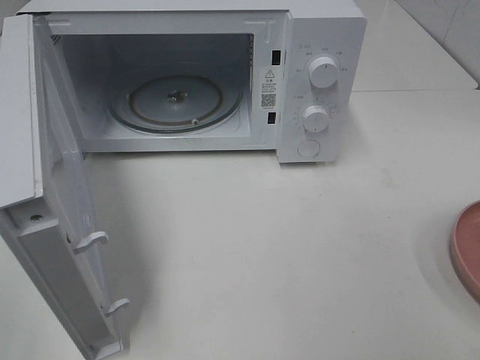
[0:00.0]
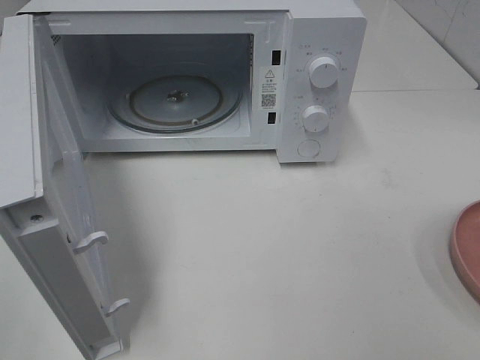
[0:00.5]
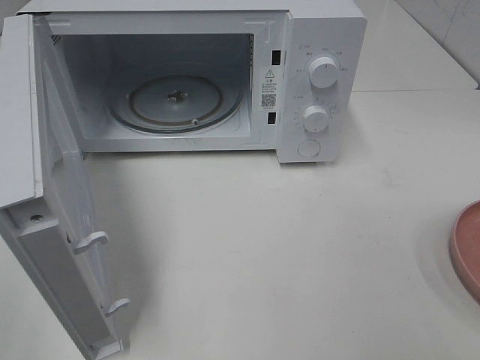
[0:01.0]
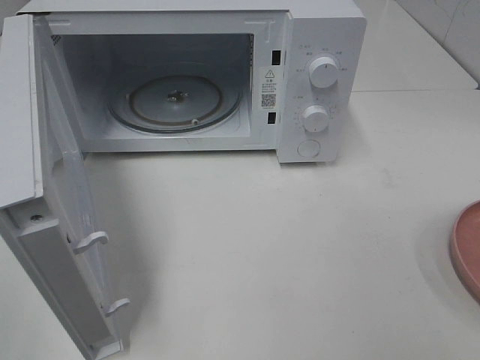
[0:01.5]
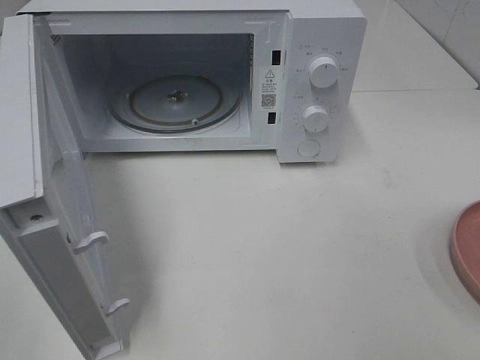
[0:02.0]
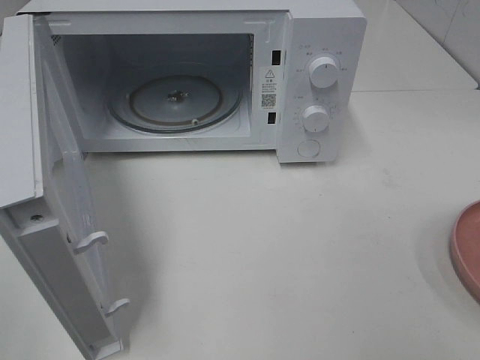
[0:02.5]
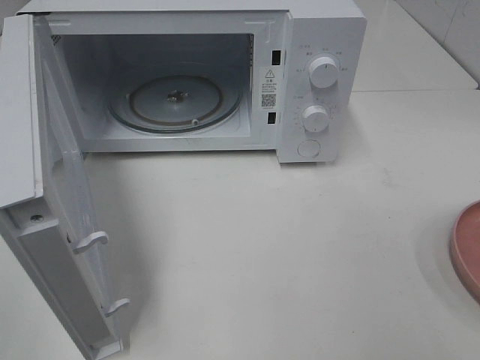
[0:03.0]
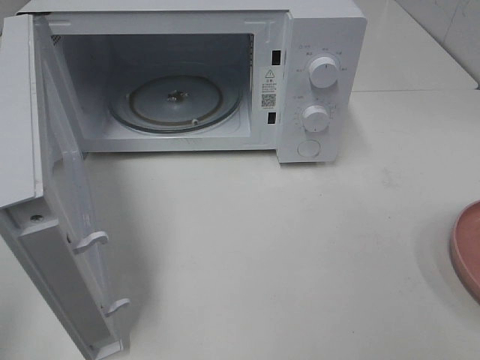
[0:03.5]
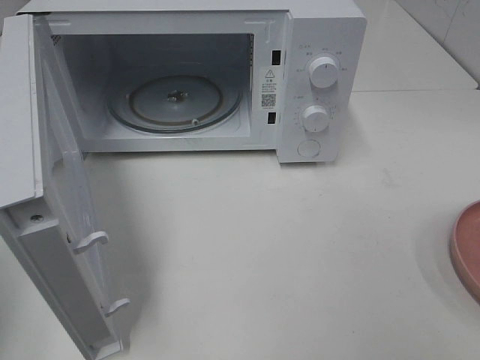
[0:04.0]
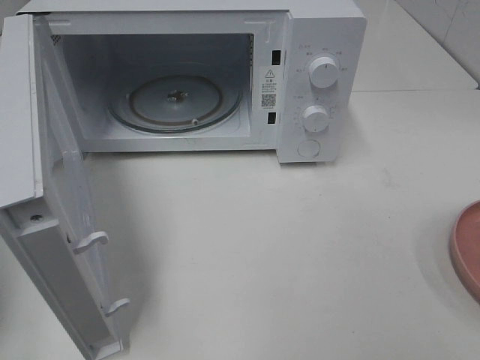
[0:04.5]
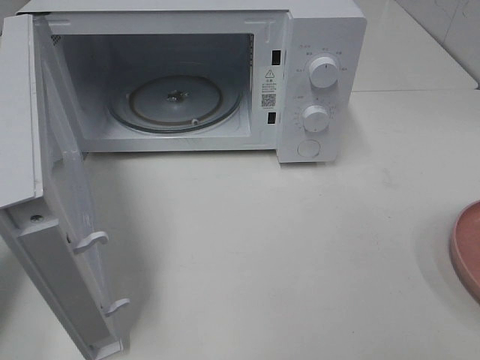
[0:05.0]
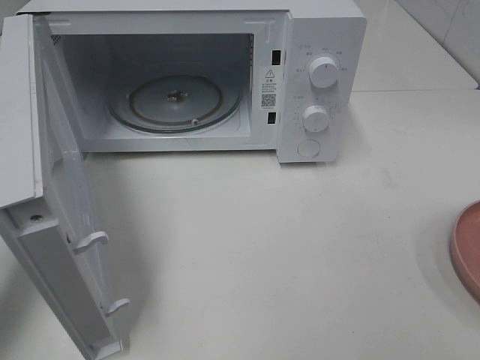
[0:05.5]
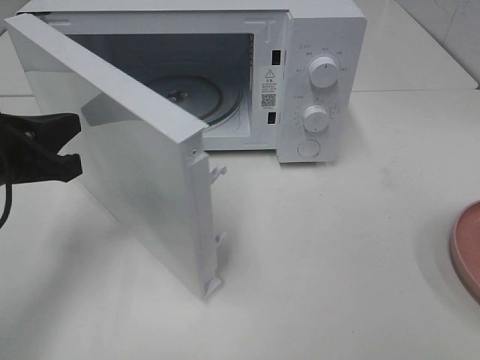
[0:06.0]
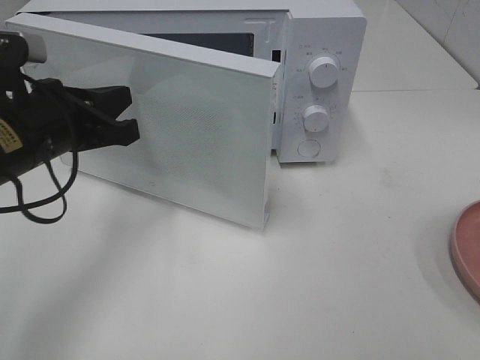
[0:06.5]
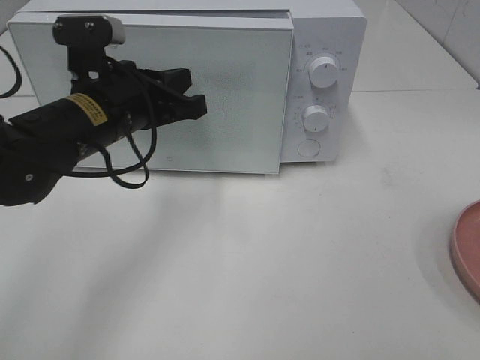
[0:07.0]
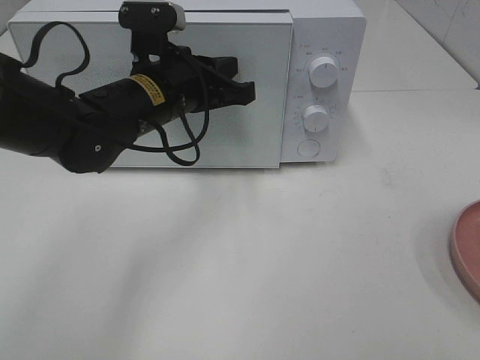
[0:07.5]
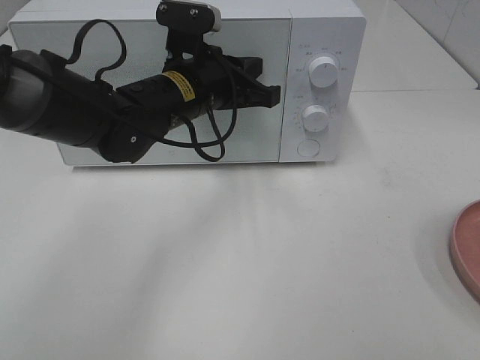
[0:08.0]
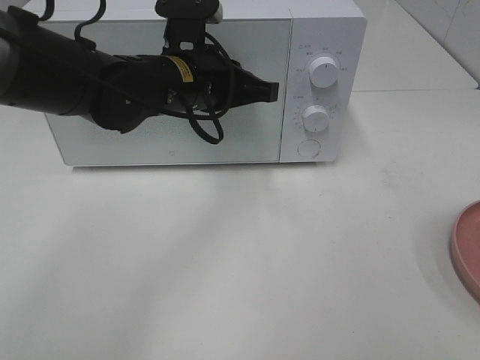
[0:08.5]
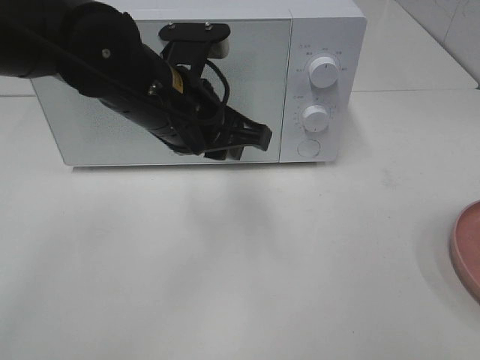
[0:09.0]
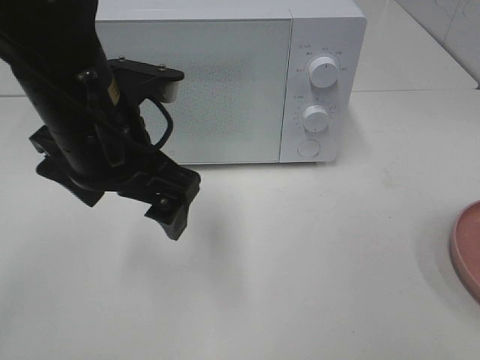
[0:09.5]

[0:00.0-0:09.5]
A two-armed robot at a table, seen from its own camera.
Task of the whole recording: Heat the burger.
Step, 0:00.0 to 0:08.5: Left hand: close the microwave door.
0:04.0 to 0:05.5: The left gripper heads forward and downward, covering about 15 cm.
0:05.5 to 0:07.5: The left gripper travels to the right and forward by about 25 cm.
0:07.5 to 0:09.5: The left gripper moves backward and upward, about 10 cm, and opens.

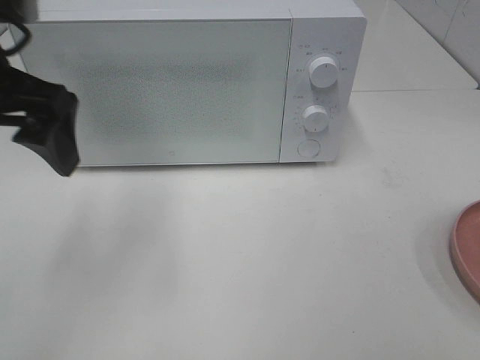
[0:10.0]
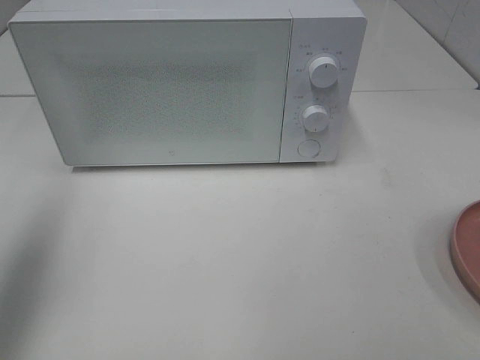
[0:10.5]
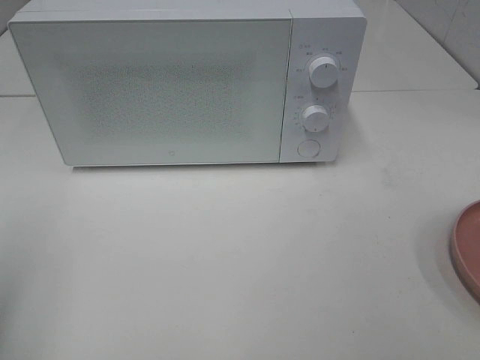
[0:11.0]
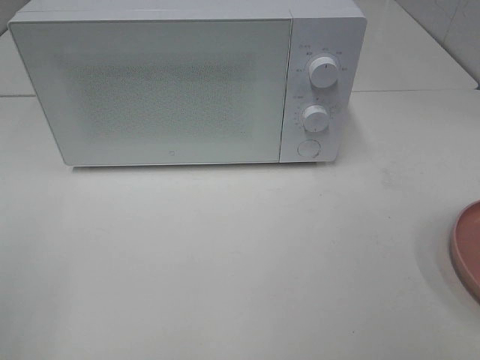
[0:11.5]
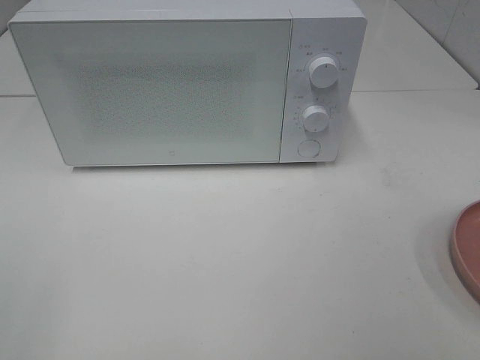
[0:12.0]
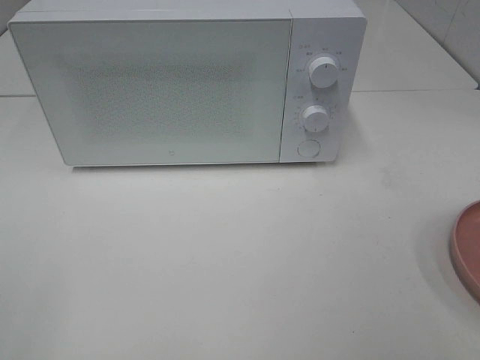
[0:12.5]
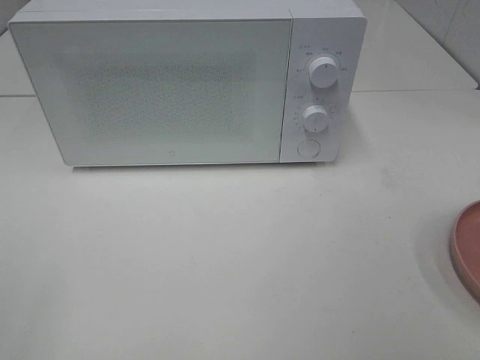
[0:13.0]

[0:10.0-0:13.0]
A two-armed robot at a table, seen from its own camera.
Task of the whole recording: Heat the burger.
0:10.0 to 0:11.5: The left gripper goes roughly 25 cm backward and to the left.

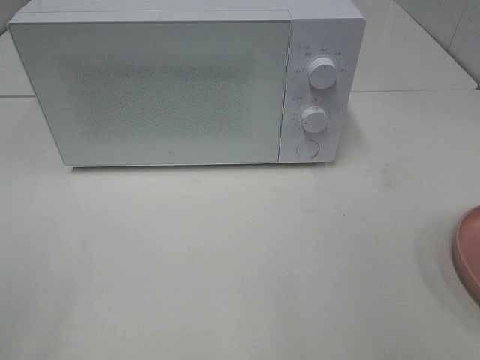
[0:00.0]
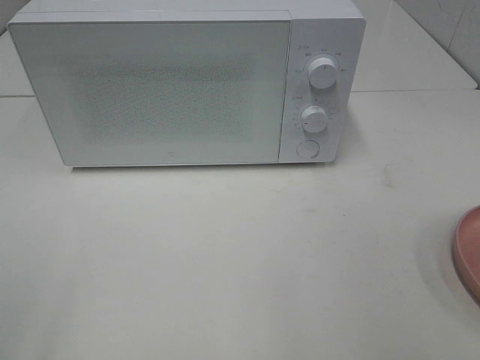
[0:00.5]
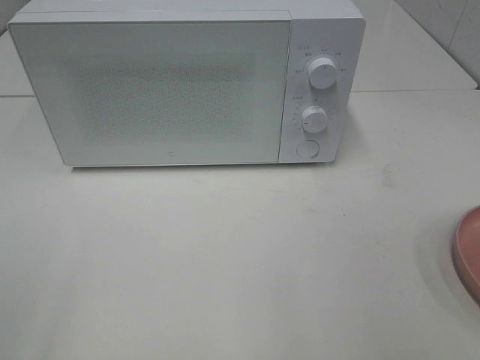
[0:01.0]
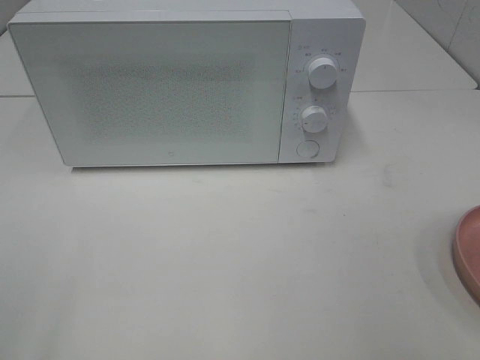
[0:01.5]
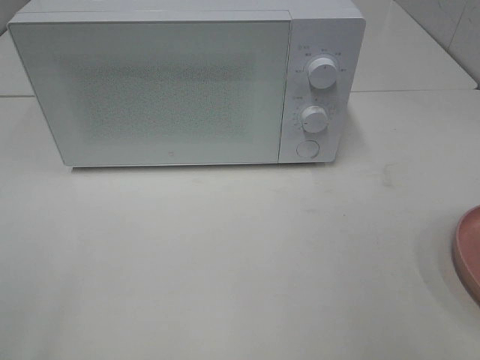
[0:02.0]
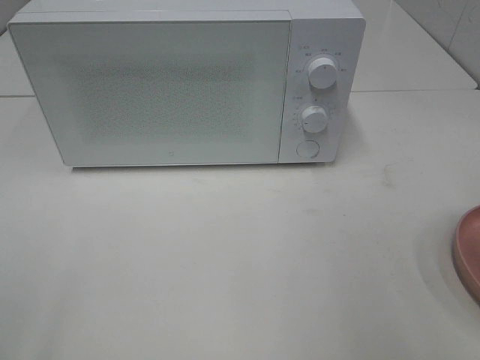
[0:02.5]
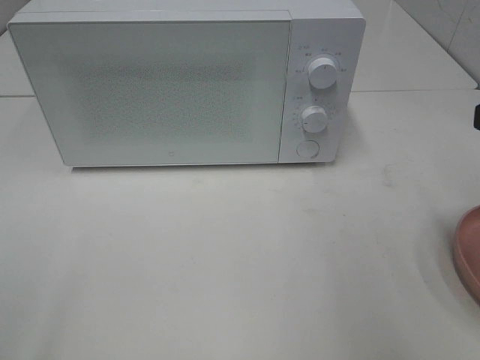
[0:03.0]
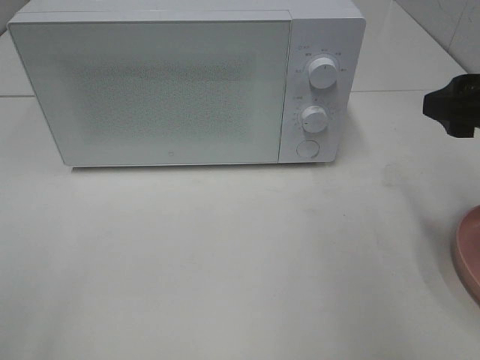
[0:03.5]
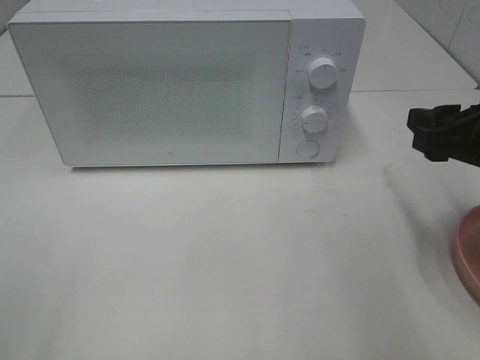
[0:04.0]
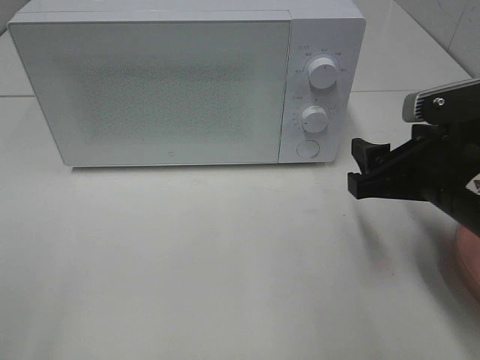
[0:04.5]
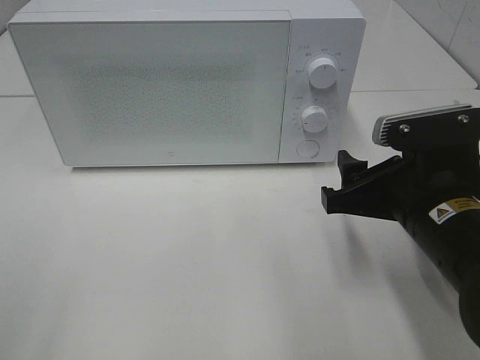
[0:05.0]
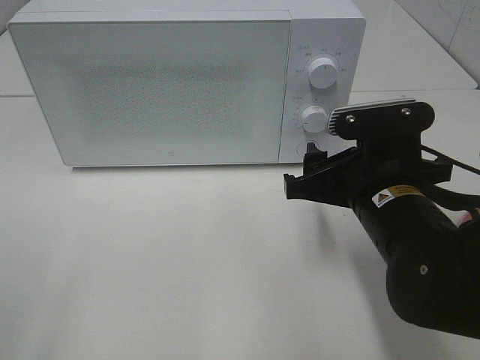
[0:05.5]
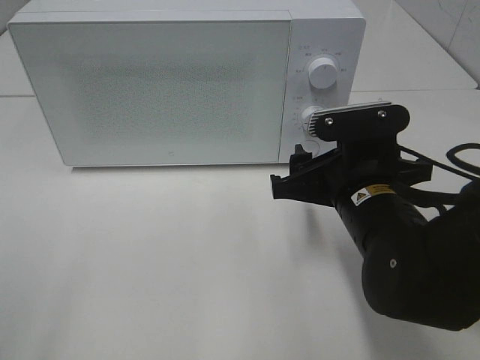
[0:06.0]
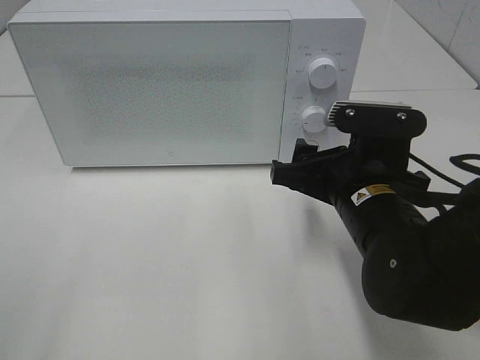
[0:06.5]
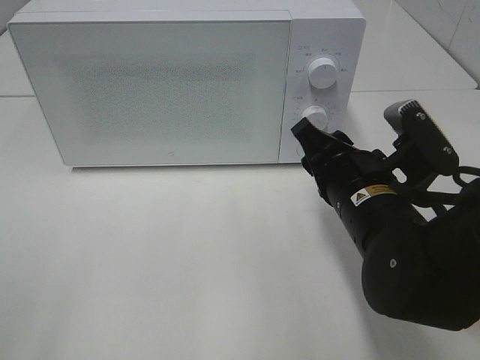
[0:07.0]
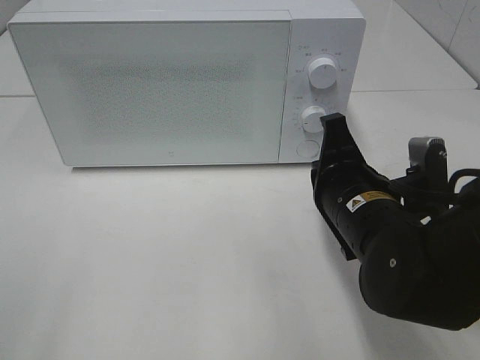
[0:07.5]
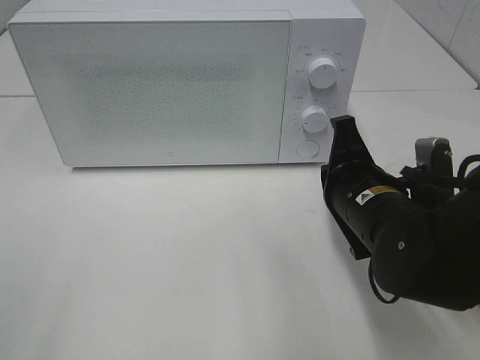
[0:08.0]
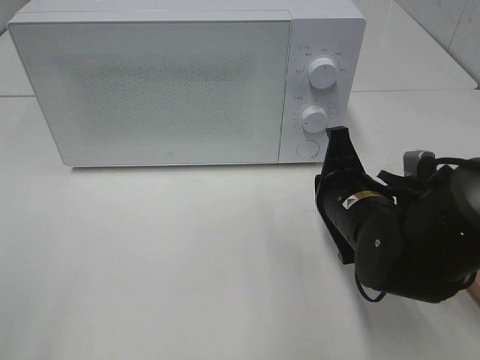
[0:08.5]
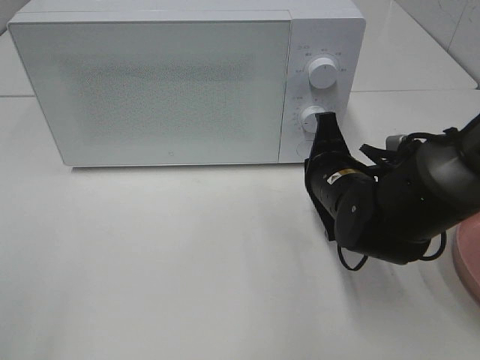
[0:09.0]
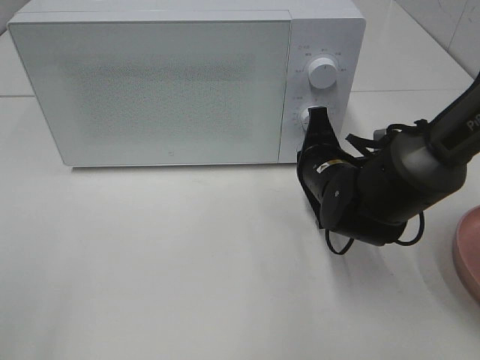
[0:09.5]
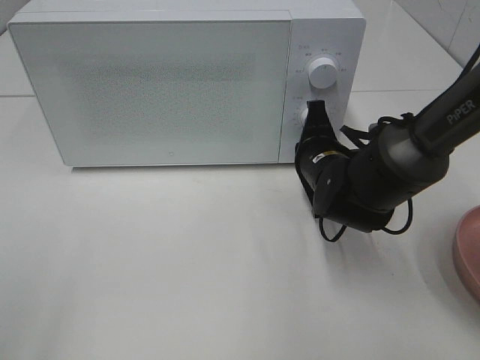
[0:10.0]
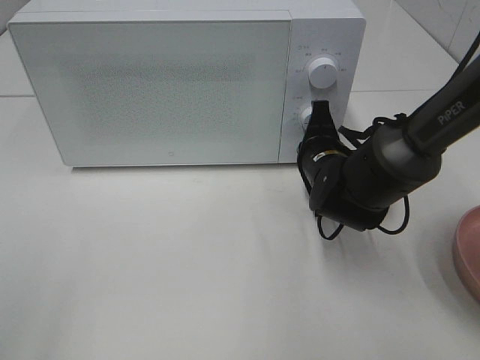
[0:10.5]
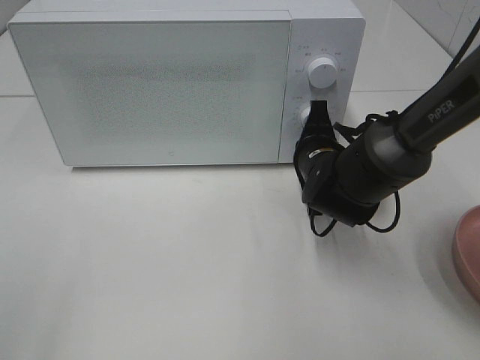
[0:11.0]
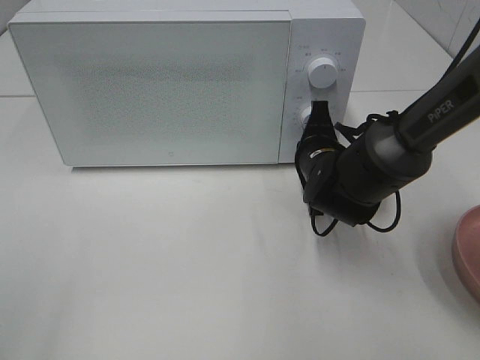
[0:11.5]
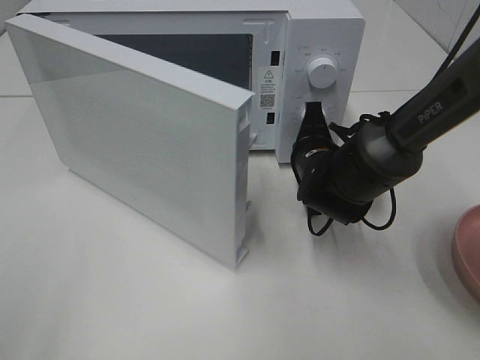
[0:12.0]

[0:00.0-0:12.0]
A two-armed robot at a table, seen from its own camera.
Task of the whole recording: Heat the burger.
0:02.0 to 0:04.0: The right gripper travels forward and downward by roughly 20 cm.
0:04.0 to 0:06.0: The right gripper is displaced to the left and downward by approximately 15 cm.
0:06.0 to 0:08.0: The right gripper closes.
0:08.0 to 0:10.0: The right gripper shifts some 10 cm forward.

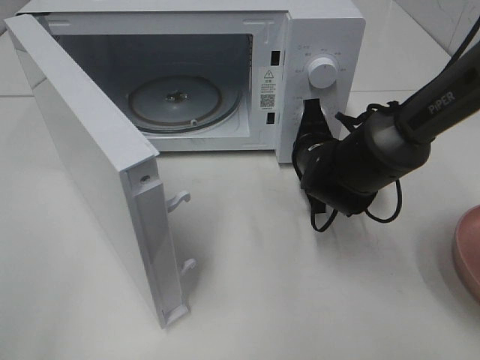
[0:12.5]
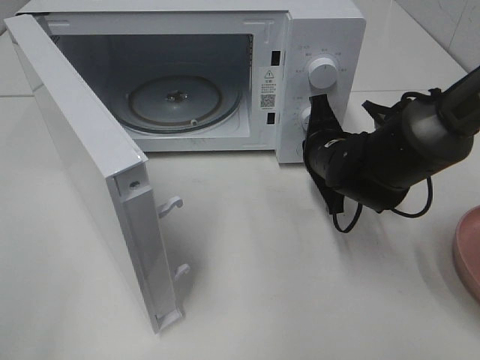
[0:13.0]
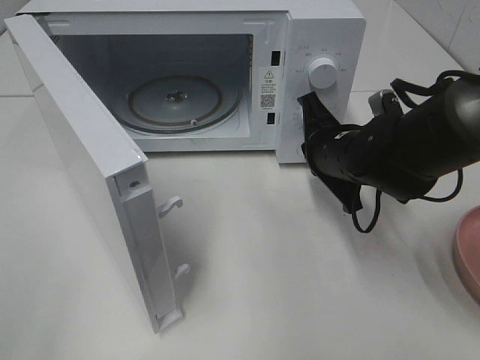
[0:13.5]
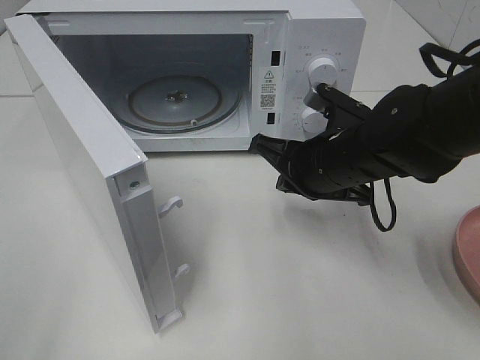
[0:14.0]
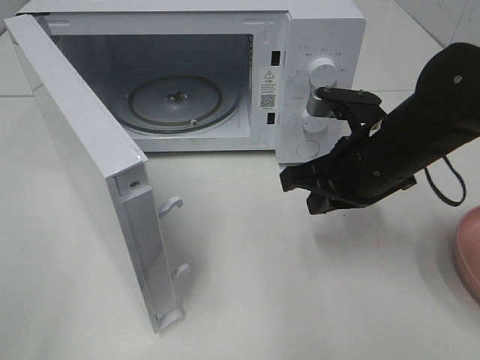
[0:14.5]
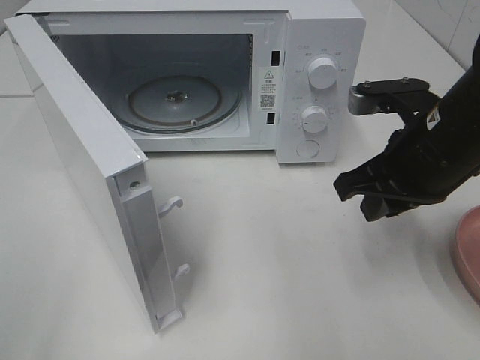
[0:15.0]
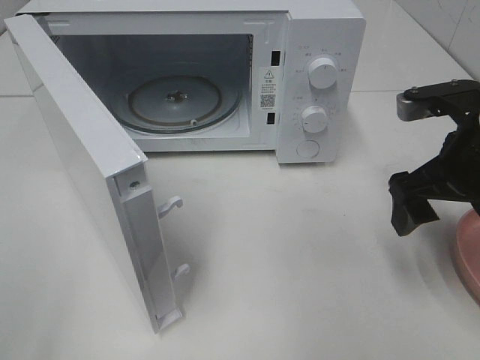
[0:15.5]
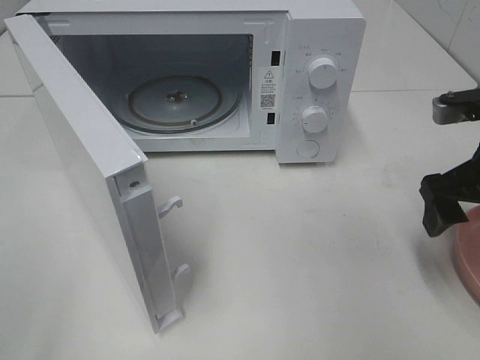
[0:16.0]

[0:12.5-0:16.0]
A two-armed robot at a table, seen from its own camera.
Task of the whole recording: Heat the burger.
0:12.5 to 0:14.5: The right gripper goes roughly 10 cm backward and upward.
0:14.5 to 0:16.0: The right gripper moves to the right, approximately 10 cm, and opens its fingers.
